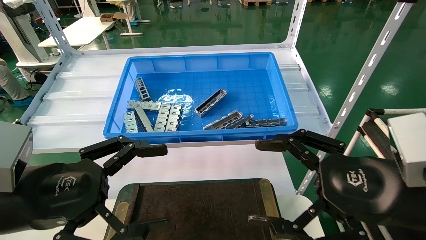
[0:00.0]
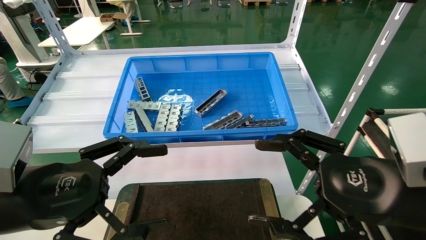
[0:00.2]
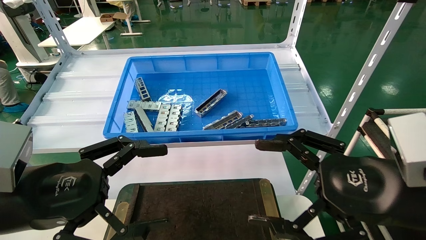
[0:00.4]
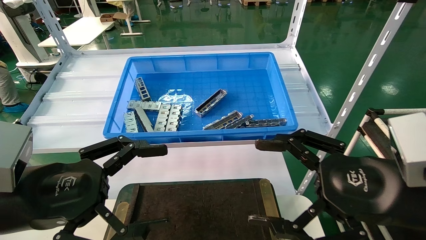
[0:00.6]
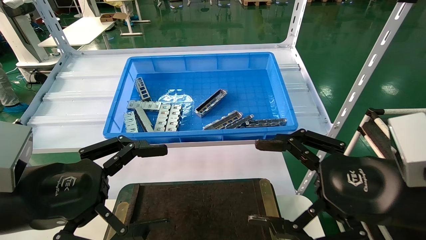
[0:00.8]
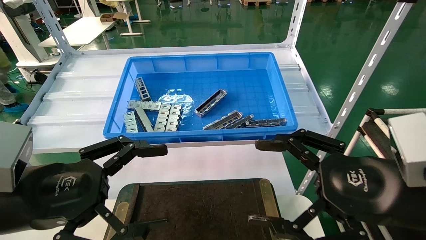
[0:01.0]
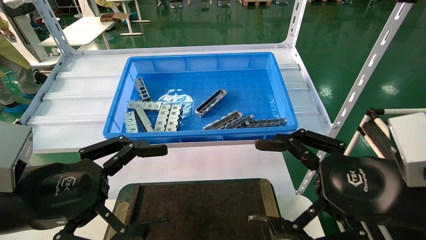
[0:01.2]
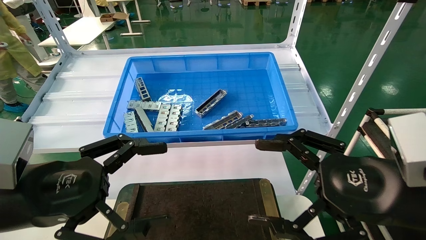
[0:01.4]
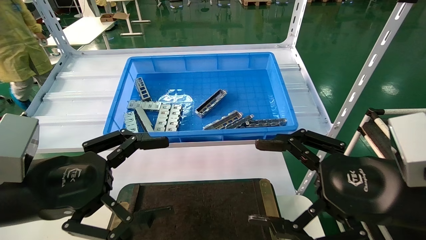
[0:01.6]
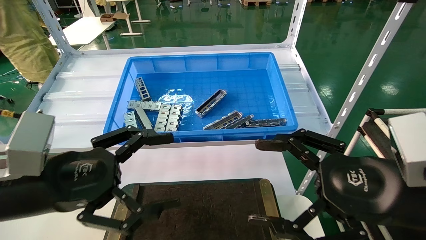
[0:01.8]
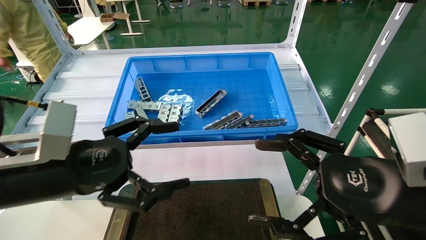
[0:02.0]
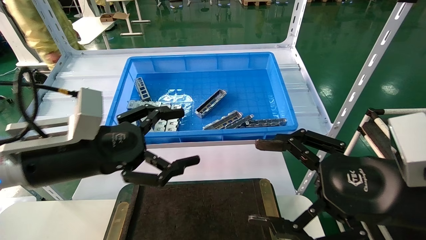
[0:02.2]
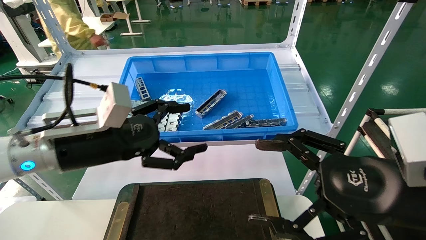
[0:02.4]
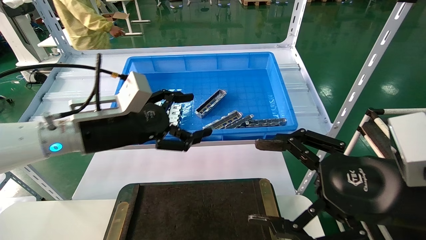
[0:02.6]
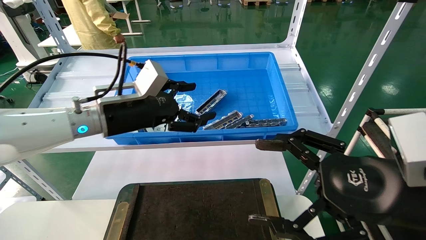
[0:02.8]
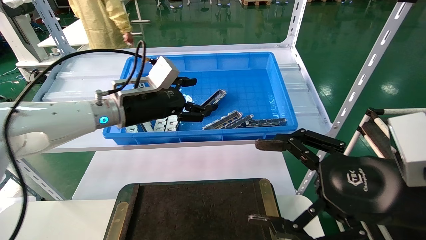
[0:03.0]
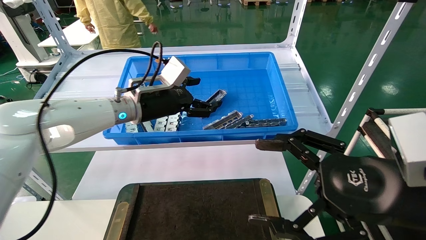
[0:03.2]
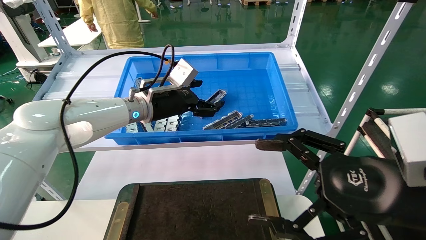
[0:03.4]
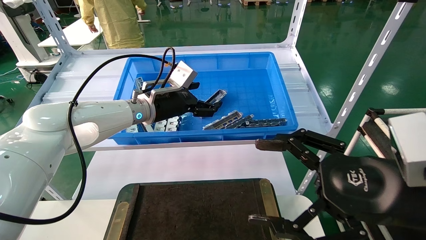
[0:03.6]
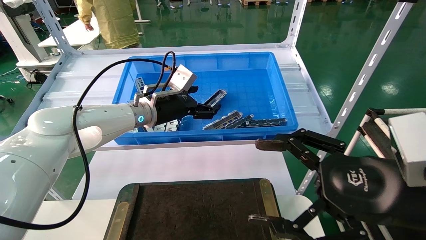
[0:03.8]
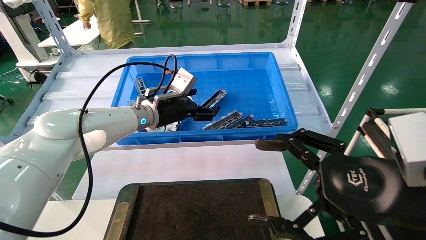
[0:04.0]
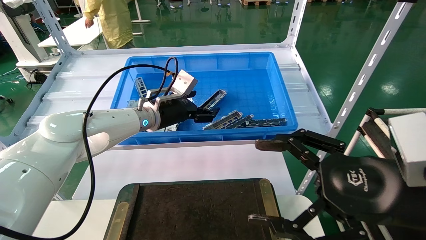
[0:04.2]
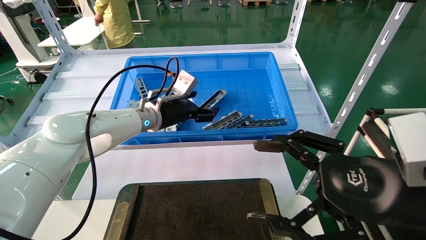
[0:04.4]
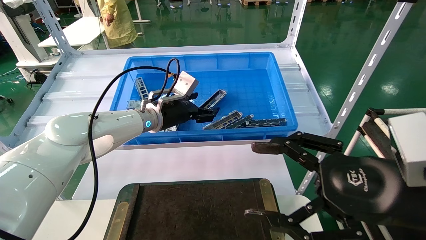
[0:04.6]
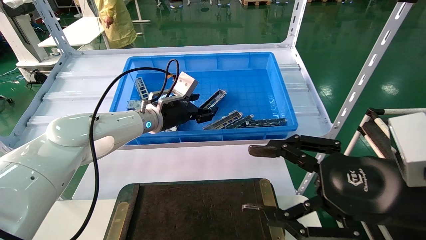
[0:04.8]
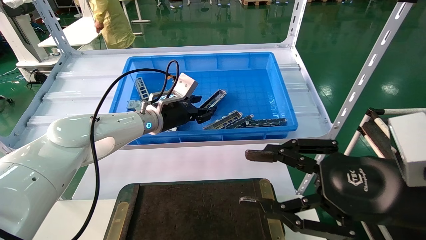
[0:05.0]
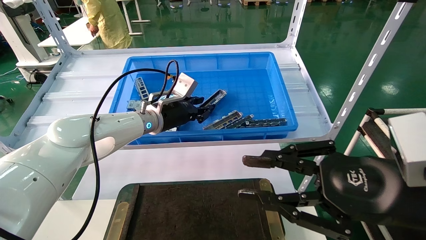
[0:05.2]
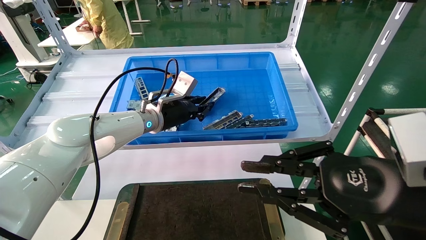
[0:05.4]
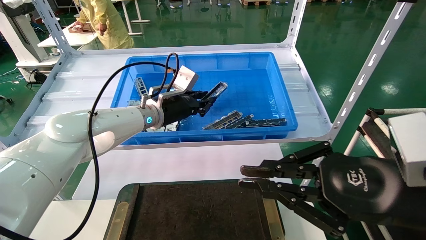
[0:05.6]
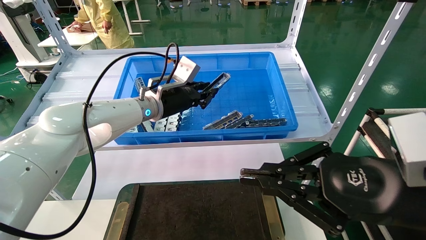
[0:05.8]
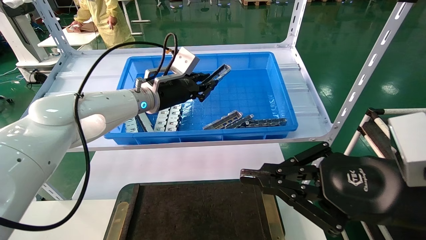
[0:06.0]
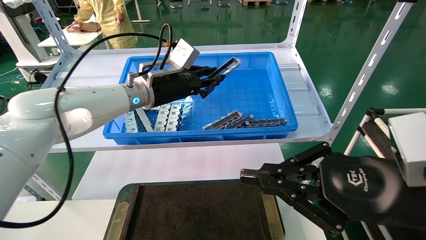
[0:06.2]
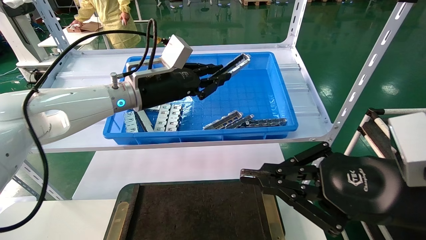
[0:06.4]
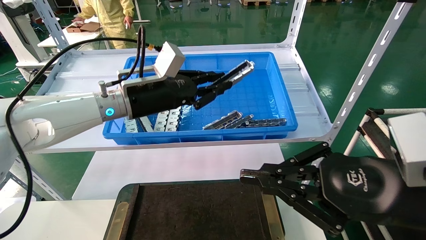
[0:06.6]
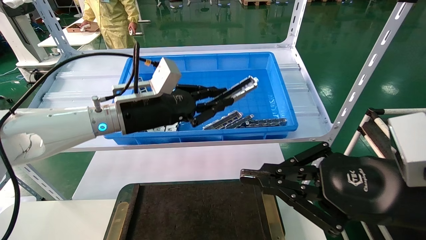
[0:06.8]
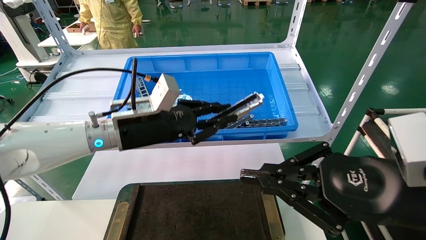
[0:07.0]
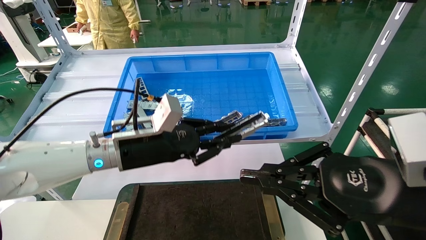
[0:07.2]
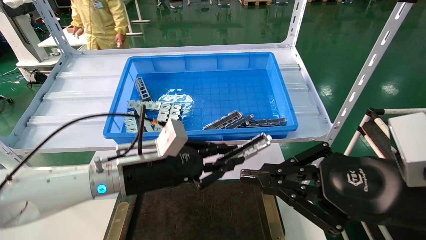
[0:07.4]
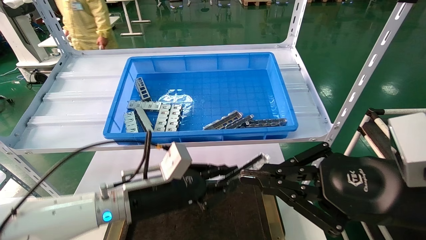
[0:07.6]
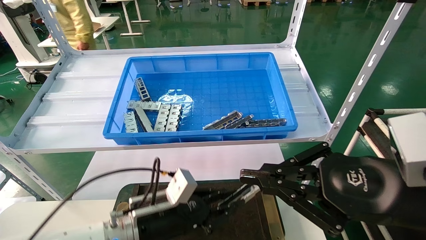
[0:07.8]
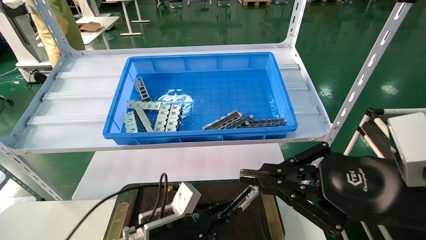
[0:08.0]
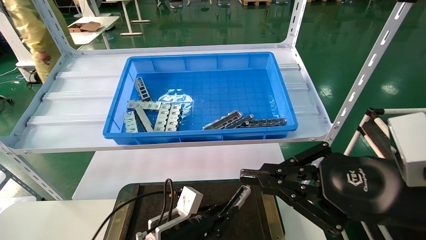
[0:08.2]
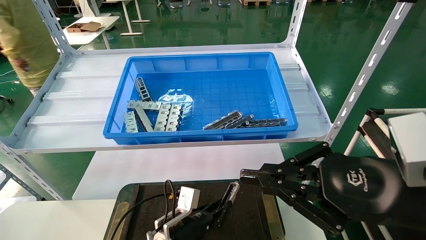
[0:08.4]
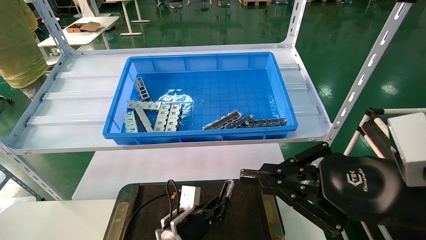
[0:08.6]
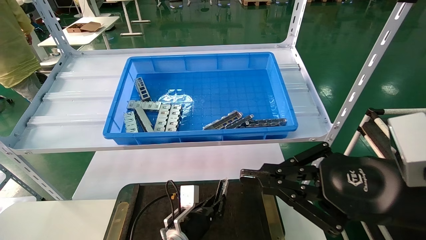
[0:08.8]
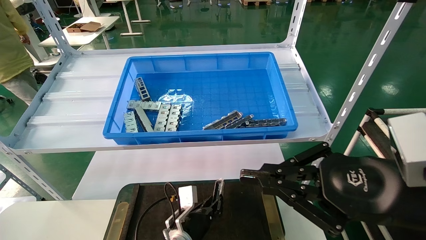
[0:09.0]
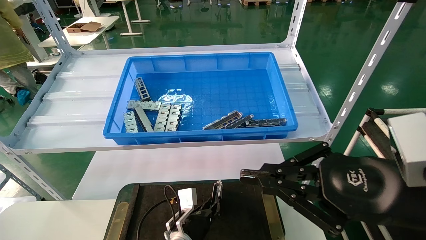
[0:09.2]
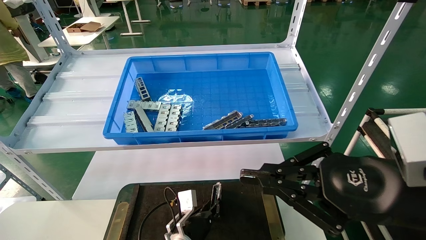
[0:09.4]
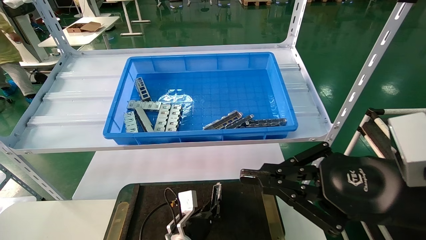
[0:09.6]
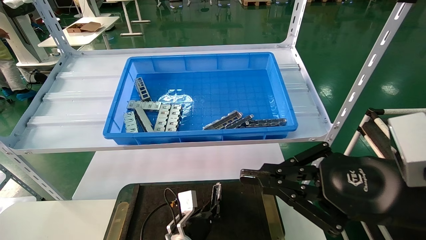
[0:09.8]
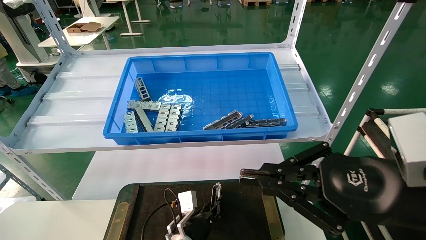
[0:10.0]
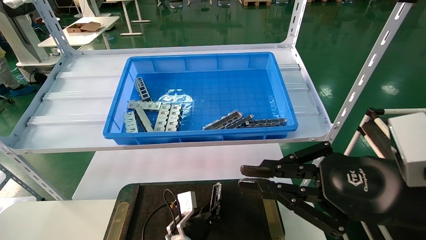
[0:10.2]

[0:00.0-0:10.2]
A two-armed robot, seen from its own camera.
Task of the whole recording: Grasp the part with one hand and place it on the black container.
Step, 0:02.0 to 0:05.8: Pick up the front USB bracket from the feeding area.
0:00.0 to 0:01.4: Neither gripper changes place.
0:01.4 to 0:03.0: The left gripper is displaced forward by some 25 cm.
0:03.0 to 0:04.4: The left gripper goes roughly 5 cm forward.
0:04.4 to 0:05.8: The right gripper closes up, while the left gripper closes up.
0:05.8 to 0:07.2: The left gripper goes about 15 cm backward and downward.
0:07.2 to 0:08.8: The left gripper is displaced downward by approximately 25 cm.
0:08.8 to 0:10.2: The grippers stay close to where they were, moving slightly.

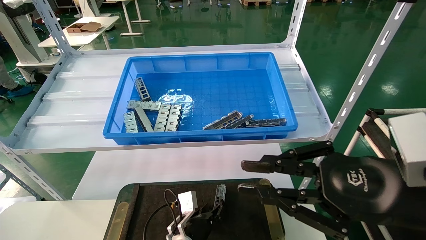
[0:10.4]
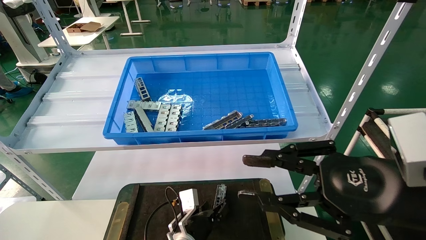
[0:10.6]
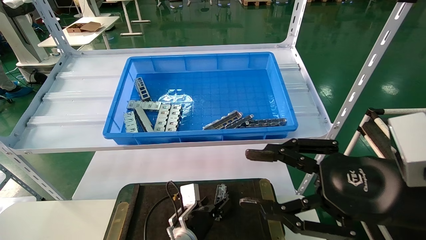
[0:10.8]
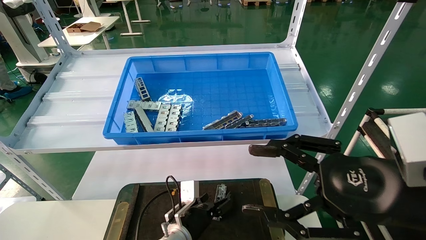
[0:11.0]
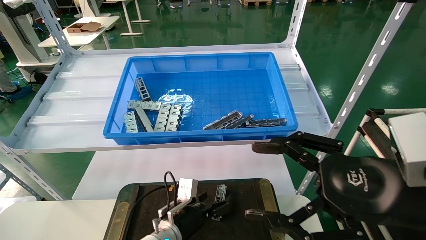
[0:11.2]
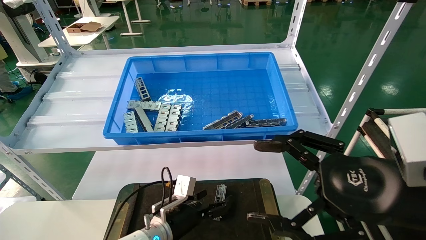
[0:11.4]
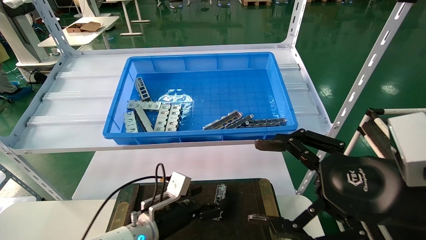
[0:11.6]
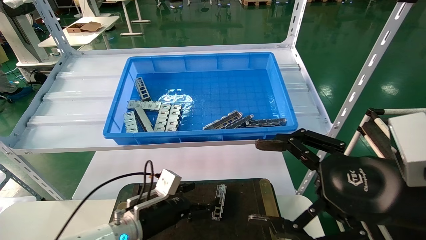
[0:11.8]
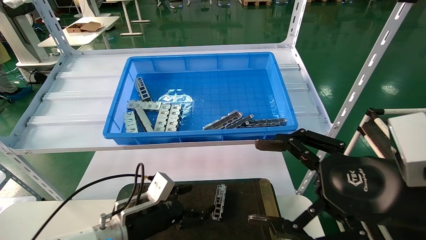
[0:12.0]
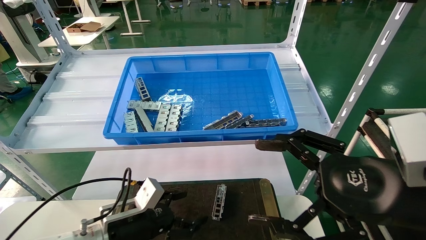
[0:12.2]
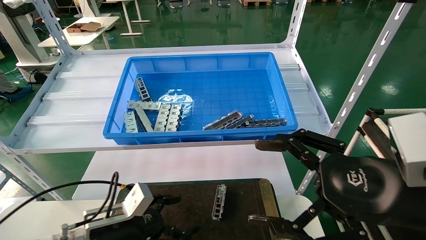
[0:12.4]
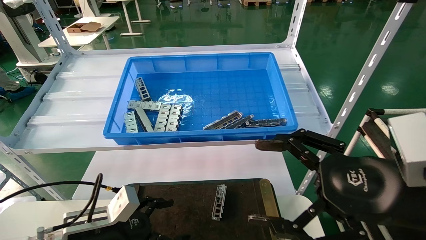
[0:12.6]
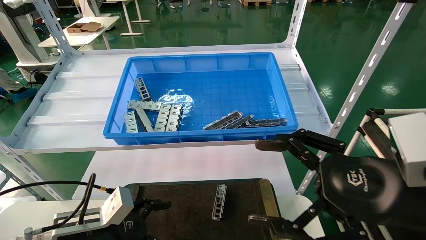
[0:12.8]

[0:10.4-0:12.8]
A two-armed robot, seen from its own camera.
Task of the whole recording: Grasp the part with one hand and place it on the black container.
0:10.4 to 0:11.6: The left gripper heads to the left and upward, covering approximately 10 cm, and opens up, while the right gripper opens up.
0:11.6 to 0:12.8: The left gripper goes about 15 cm to the left, backward and upward.
